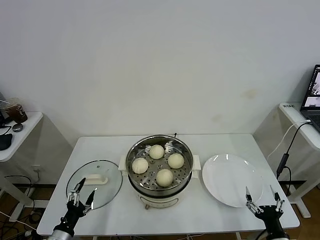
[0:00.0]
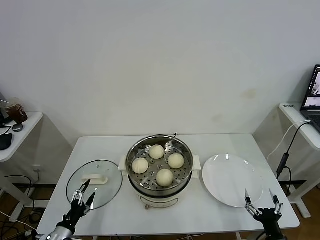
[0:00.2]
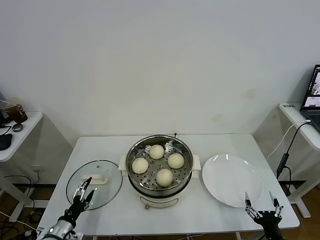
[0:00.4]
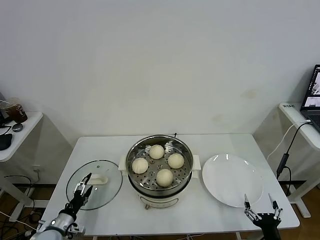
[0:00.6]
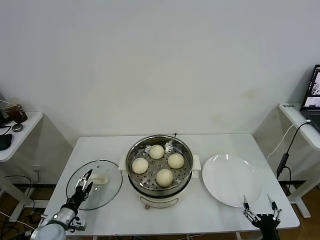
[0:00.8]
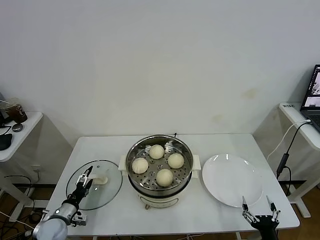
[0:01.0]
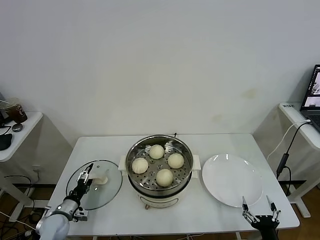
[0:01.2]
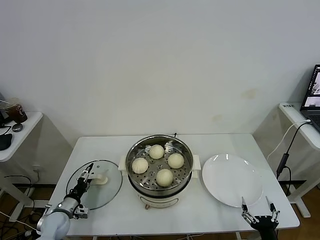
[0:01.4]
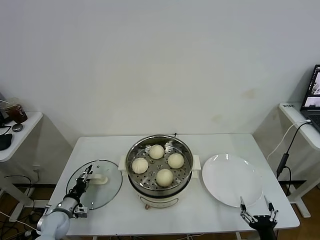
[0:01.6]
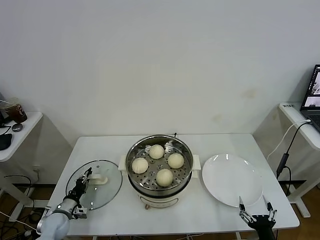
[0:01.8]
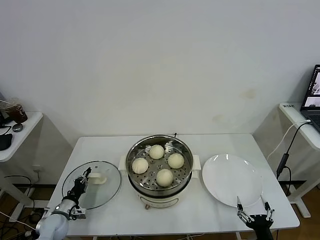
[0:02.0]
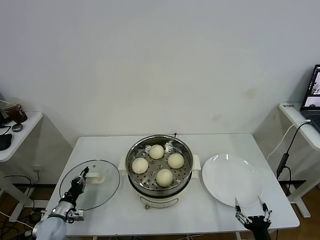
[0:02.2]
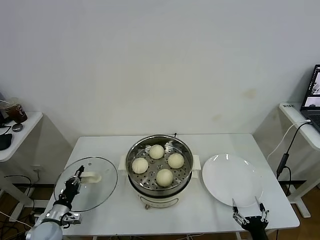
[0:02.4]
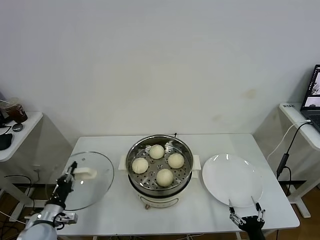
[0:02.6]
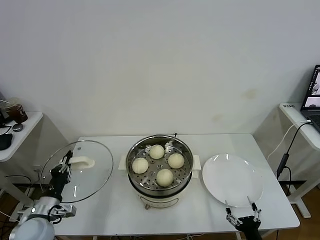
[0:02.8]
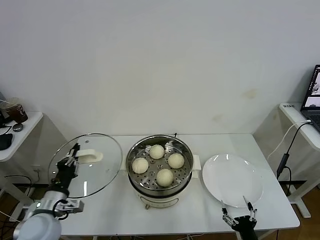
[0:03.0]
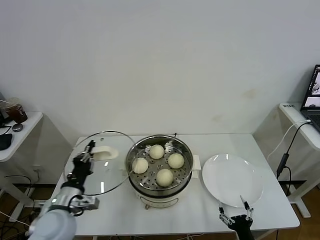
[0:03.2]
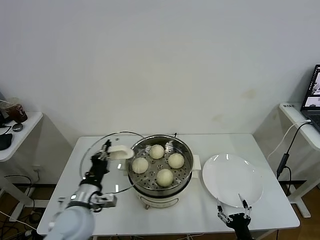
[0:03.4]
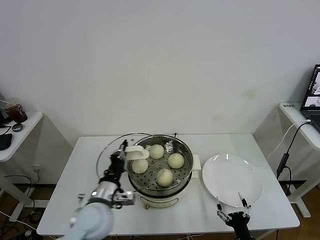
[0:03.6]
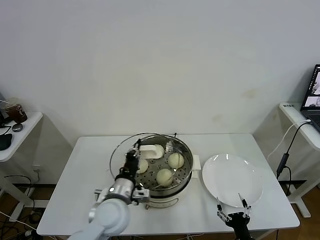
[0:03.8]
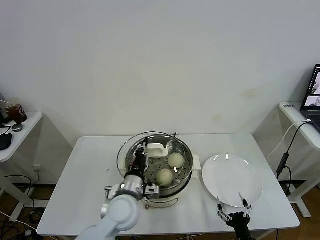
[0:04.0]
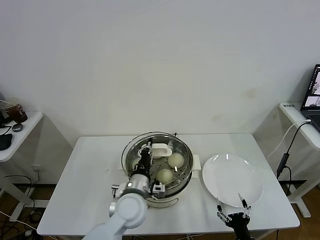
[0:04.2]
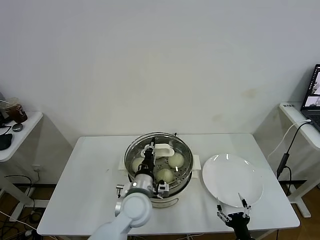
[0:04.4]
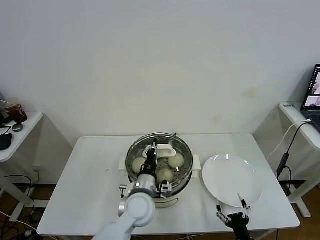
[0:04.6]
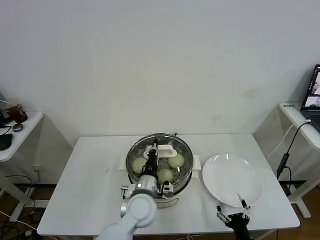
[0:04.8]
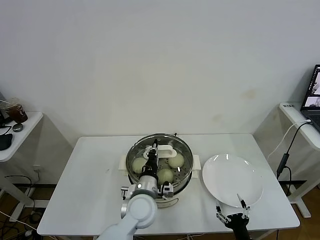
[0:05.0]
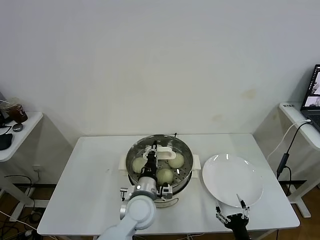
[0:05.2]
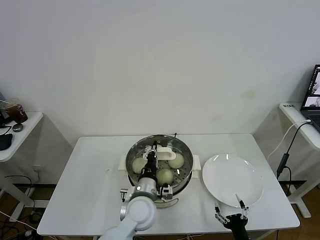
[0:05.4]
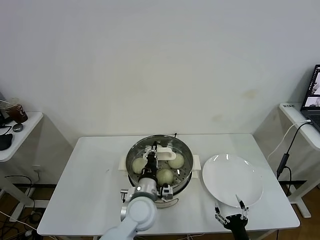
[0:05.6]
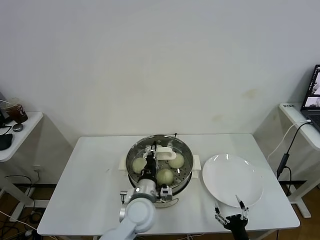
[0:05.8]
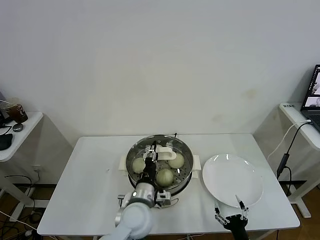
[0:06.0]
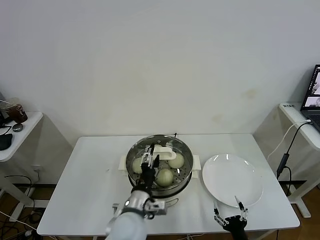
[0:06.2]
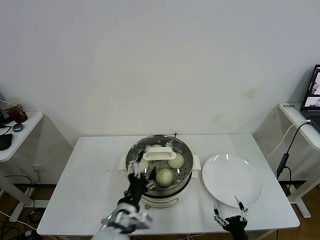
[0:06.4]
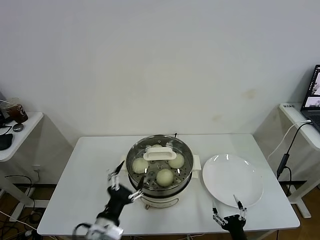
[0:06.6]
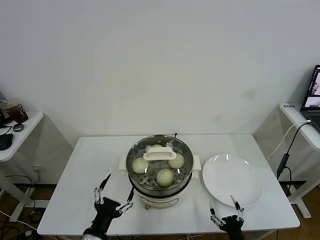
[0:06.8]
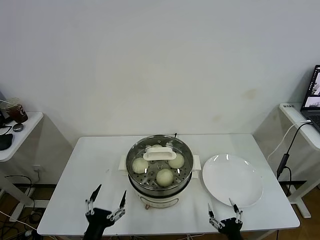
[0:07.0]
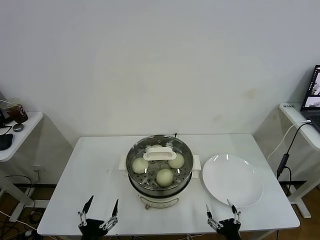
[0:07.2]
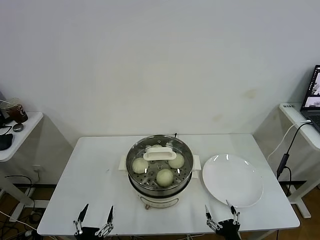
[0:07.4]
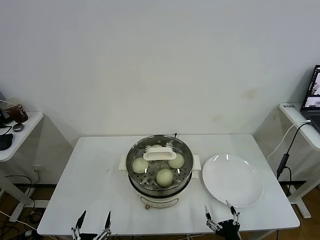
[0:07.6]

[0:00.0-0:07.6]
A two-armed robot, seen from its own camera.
Task of the whole recording: take steamed baozi put them in steamer.
Step, 0:00.0 to 0:02.0: Grasp the pot lid with left gripper.
Step, 0:02.2 to 0:06.4: Place the pot lid on the steamer with left gripper.
0:00.0 to 0:01.6: The left gripper goes some 15 cm forward and downward, and closes.
0:01.6 to 0:03.0: The left gripper is displaced upward by some 20 cm, and closes up.
0:03.0 to 0:04.6: The left gripper goes about 25 cm to the right.
0:04.6 to 0:06.0: The grippers stay close to where they were, moving slightly.
0:06.0 to 0:07.6: The left gripper goes about 30 cm backward and to the left, and opens its fingers.

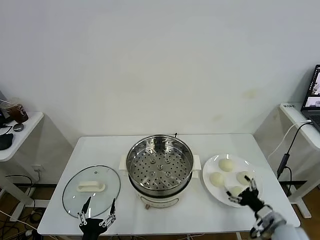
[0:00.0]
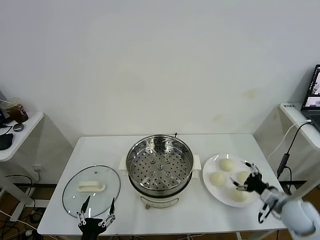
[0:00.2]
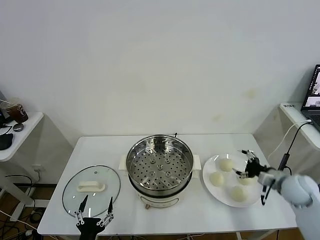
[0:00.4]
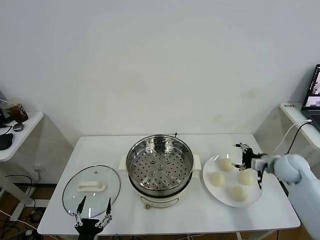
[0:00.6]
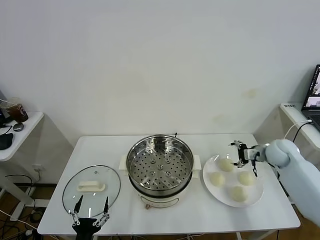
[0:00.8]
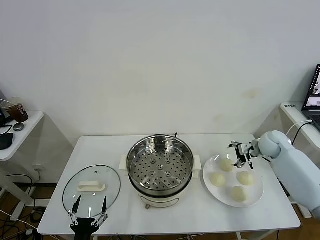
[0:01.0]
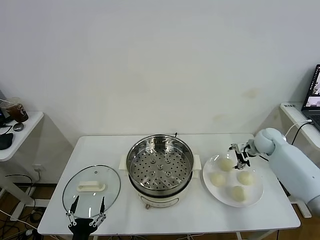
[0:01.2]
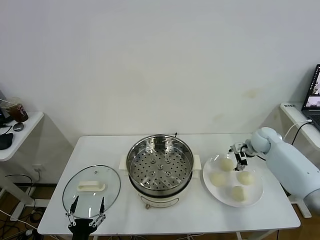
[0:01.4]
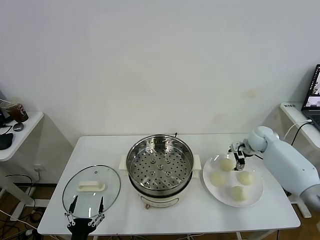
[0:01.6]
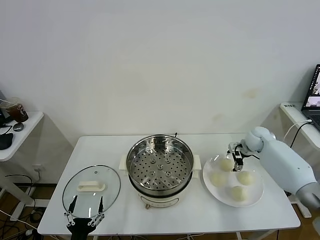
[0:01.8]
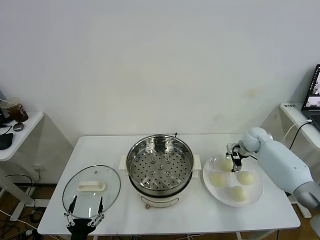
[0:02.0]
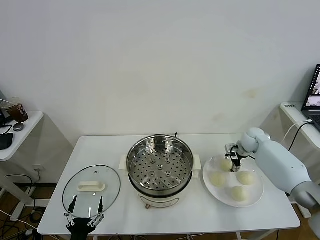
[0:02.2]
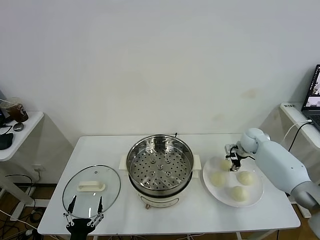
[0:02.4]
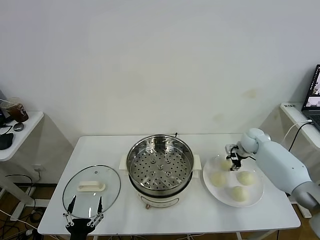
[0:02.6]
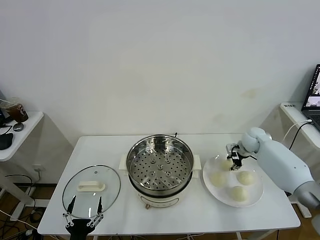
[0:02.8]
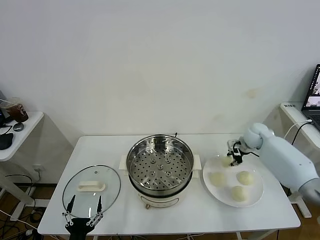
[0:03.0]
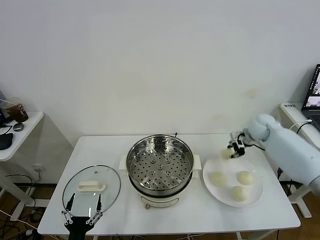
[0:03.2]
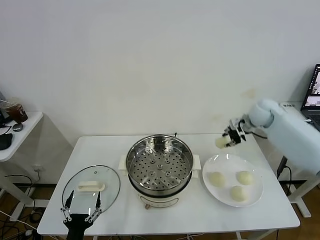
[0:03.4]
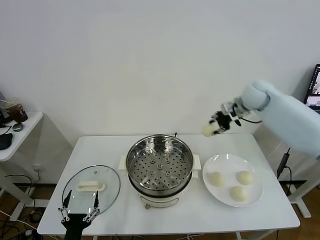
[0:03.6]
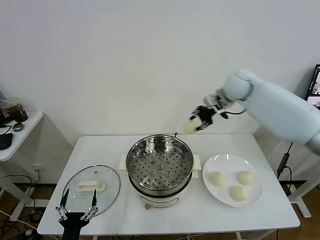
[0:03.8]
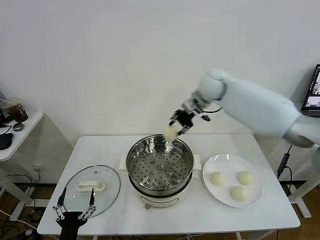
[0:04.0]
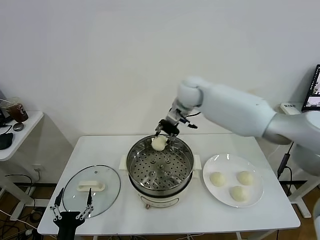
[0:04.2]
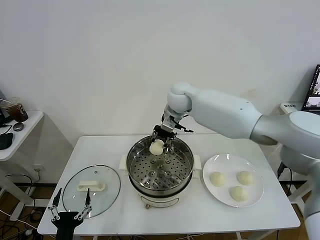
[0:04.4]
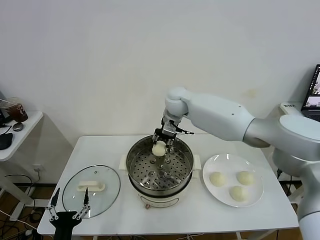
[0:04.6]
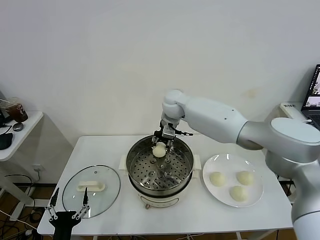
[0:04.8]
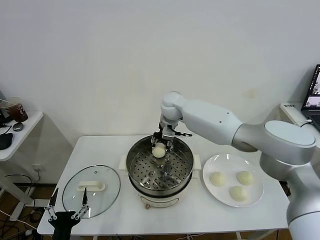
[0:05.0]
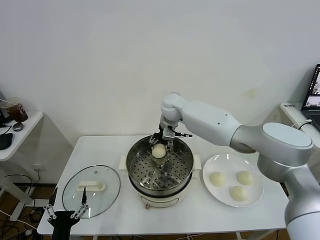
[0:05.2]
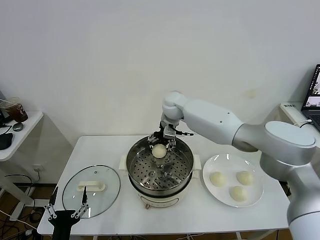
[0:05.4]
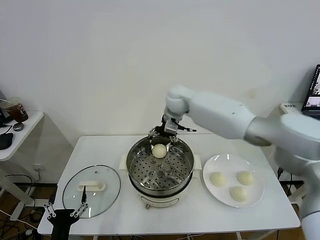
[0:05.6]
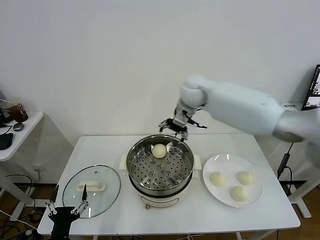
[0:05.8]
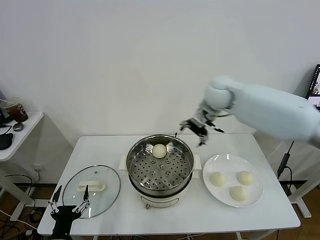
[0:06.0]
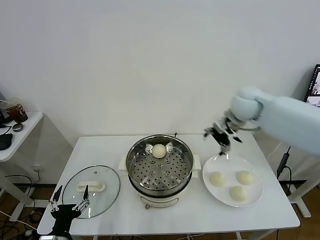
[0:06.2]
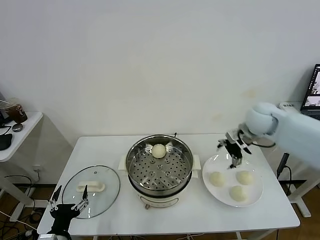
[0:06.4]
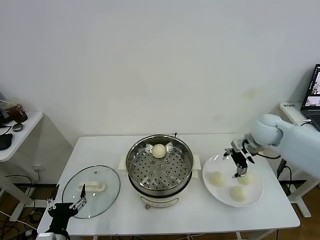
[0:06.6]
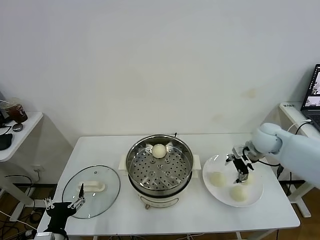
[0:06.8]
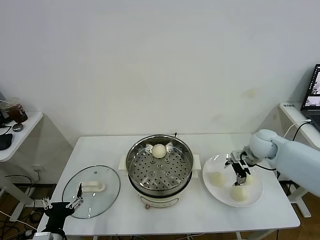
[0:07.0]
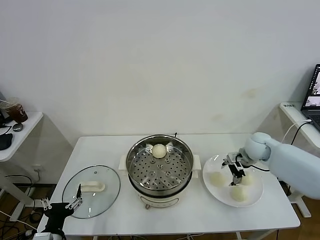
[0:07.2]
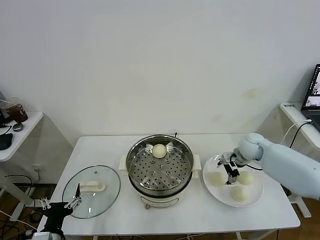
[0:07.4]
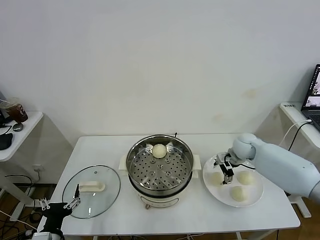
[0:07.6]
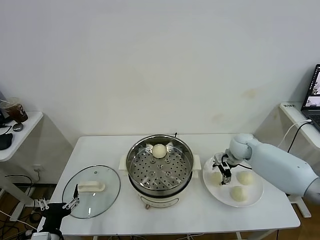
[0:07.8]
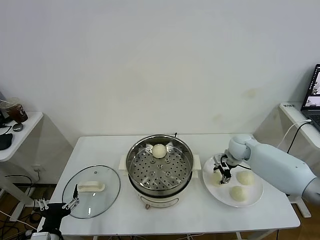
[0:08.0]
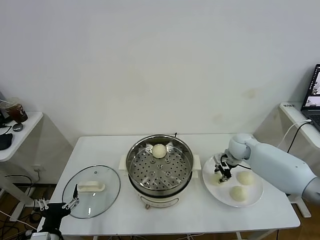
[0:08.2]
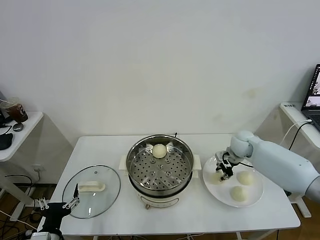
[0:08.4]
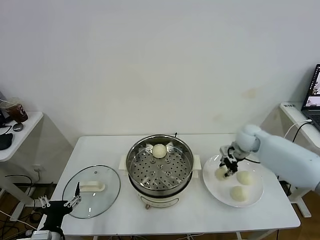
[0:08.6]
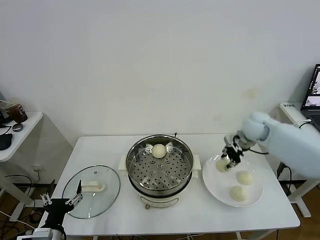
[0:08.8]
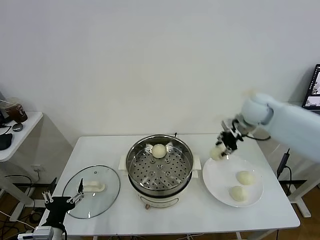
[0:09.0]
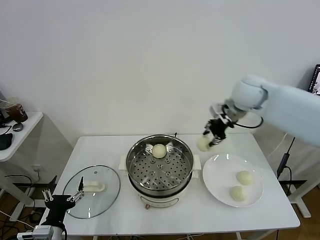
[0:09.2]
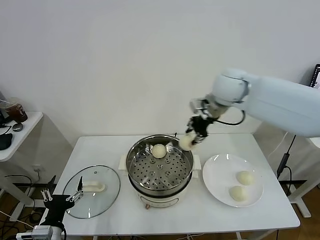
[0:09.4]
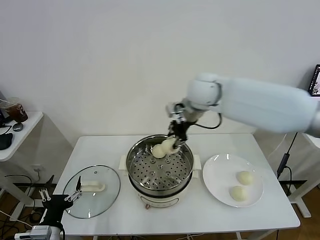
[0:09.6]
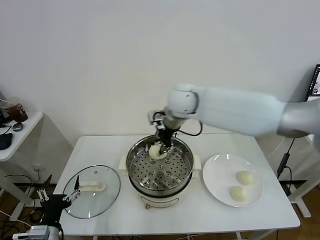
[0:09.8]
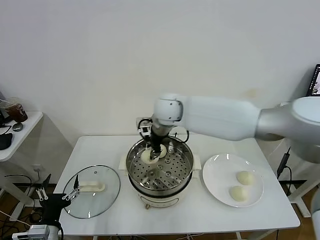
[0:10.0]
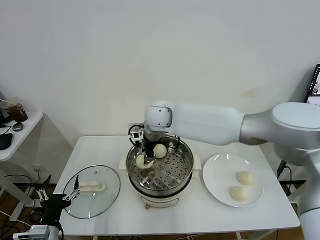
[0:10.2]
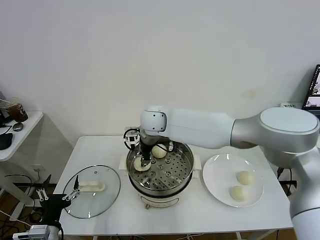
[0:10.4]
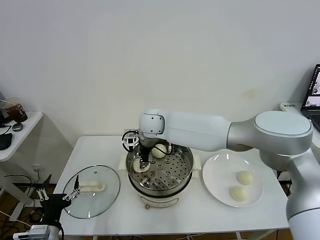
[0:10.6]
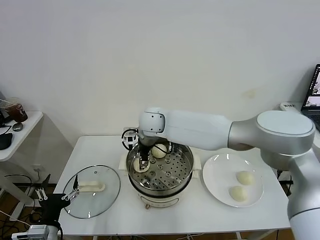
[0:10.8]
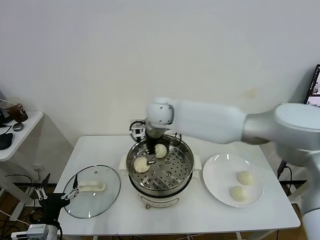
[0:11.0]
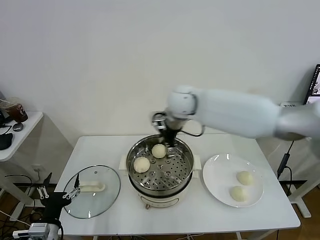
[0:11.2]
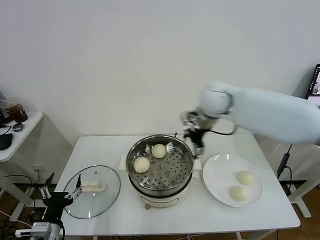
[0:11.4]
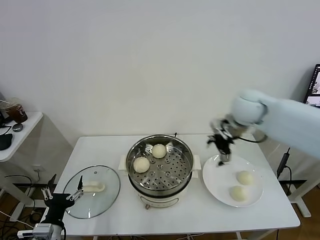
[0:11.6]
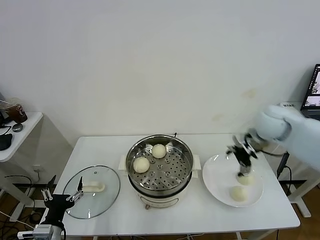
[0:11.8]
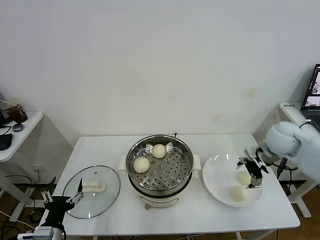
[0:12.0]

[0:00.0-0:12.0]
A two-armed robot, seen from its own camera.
Task of the whole recording: take steamed baozi put them in steamer.
Step, 0:00.0 to 0:02.6: Grasp the baozi in the plate with right gripper.
Step, 0:02.8 to 0:05.4: Place the baozi on the steamer with right gripper.
Step, 0:05.8 to 0:08.2: Grasp the baozi in the plate with right gripper.
Step, 0:08.4 to 0:11.0: Place the baozi on the steamer with right gripper.
0:01.6 to 0:03.0: The right gripper closes up.
0:03.0 to 0:04.4: The right gripper goes some 35 cm to the left and upward.
0:04.4 to 0:06.0: The right gripper is displaced to the right by roughly 15 cm, and opens.
0:06.0 to 0:07.6: The right gripper heads downward and to the right, covering some 25 cm.
0:07.6 to 0:09.0: The right gripper heads upward, covering approximately 15 cm, and closes.
0:09.0 to 0:10.4: The right gripper goes about 35 cm to the left.
0:10.4 to 0:12.0: The right gripper is displaced to the right by approximately 40 cm, and opens.

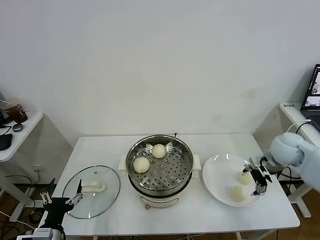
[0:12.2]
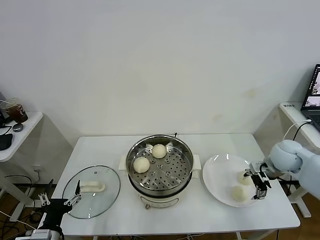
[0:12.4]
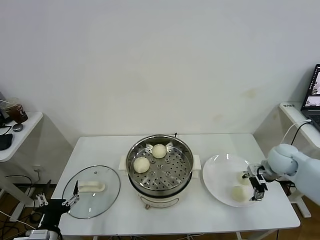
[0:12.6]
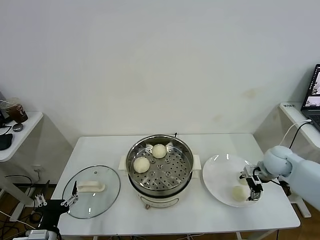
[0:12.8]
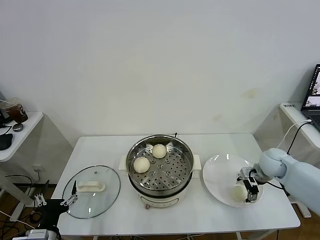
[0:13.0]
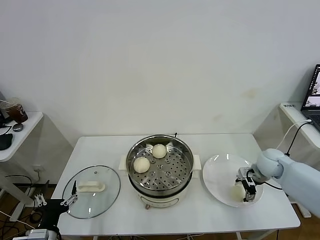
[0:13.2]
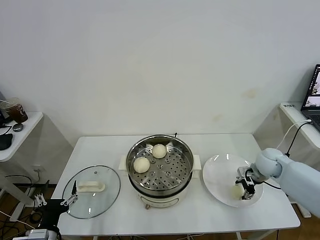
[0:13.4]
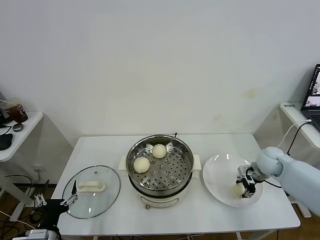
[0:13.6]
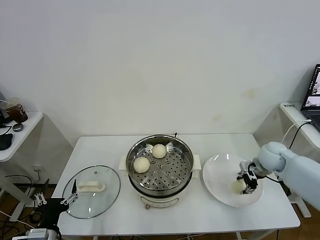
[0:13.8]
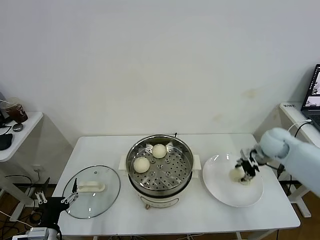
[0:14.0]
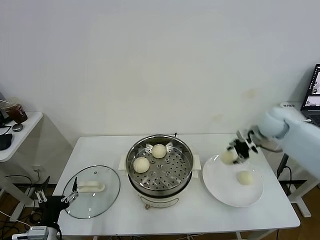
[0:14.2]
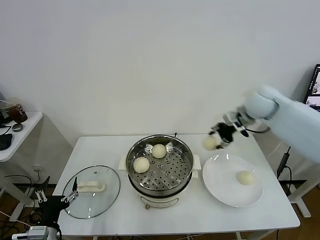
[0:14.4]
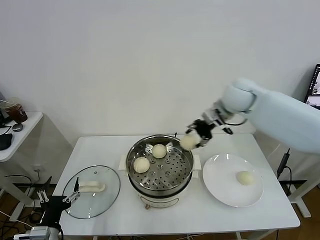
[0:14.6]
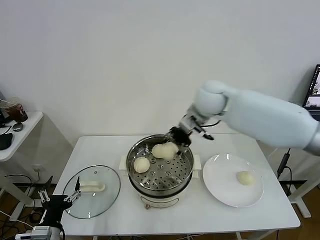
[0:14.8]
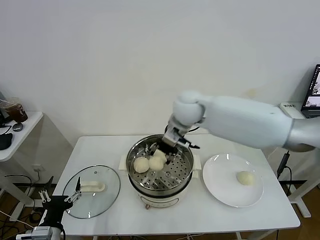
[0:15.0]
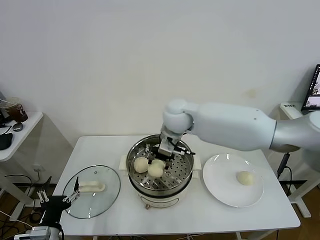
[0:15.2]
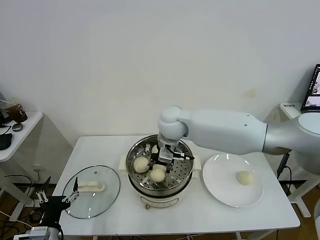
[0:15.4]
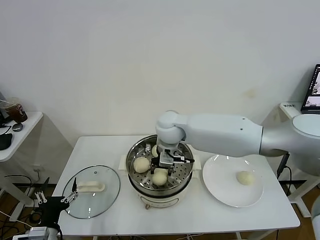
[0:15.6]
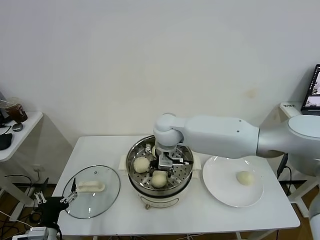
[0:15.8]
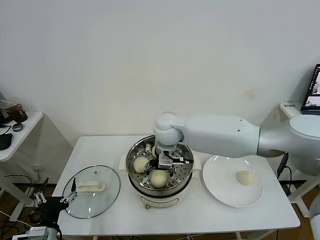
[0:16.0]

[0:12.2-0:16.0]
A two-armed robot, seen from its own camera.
Task of the whole recording: take steamed baozi put them in steamer.
Step, 0:12.2 to 0:13.4: Grasp the baozi in the plate with right gripper.
0:12.2 to 0:13.4: The right gripper shifts about 10 cm downward, and closes its fingers.
0:13.4 to 0:14.8: The right gripper goes approximately 35 cm to the left and upward.
0:14.8 to 0:16.0: The right gripper moves to the left and downward, roughly 15 cm, and opens up.
